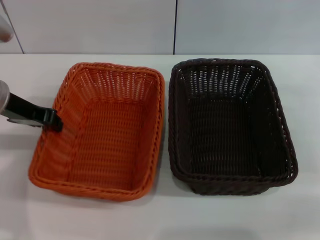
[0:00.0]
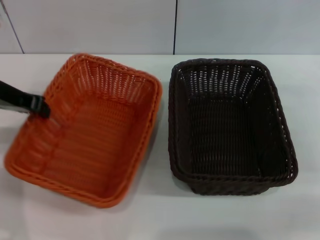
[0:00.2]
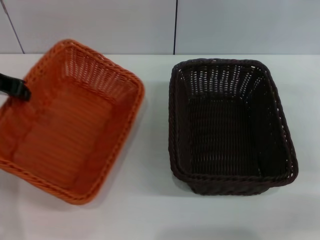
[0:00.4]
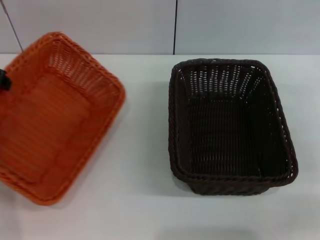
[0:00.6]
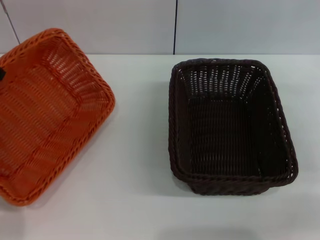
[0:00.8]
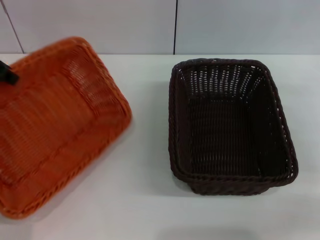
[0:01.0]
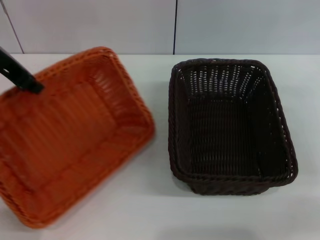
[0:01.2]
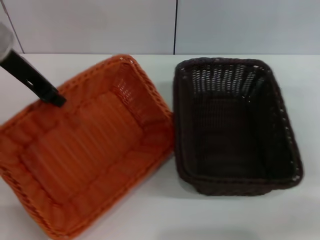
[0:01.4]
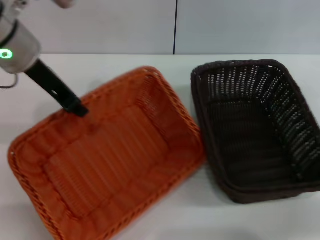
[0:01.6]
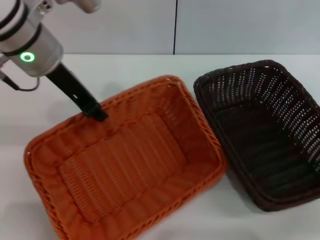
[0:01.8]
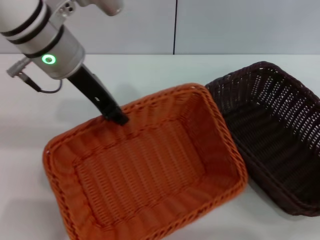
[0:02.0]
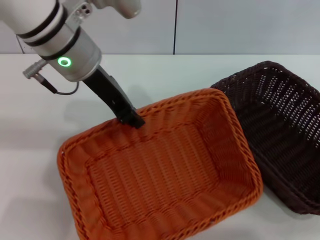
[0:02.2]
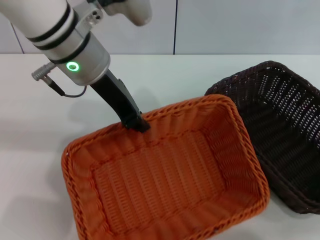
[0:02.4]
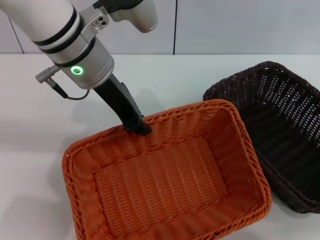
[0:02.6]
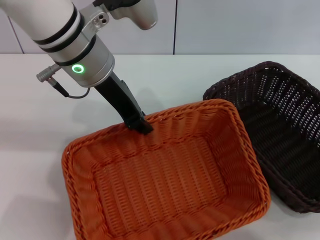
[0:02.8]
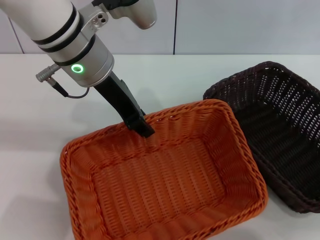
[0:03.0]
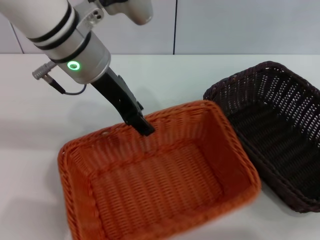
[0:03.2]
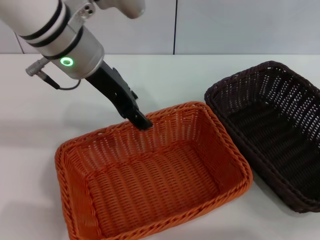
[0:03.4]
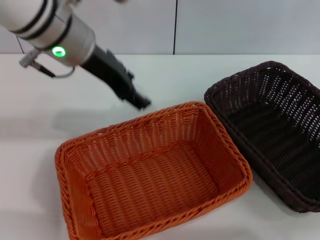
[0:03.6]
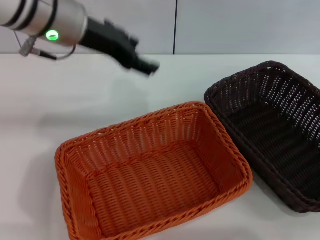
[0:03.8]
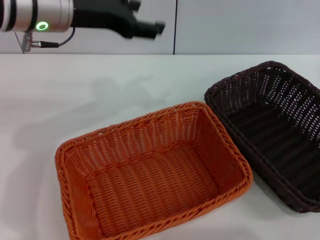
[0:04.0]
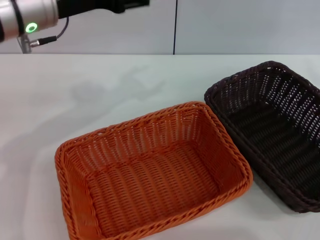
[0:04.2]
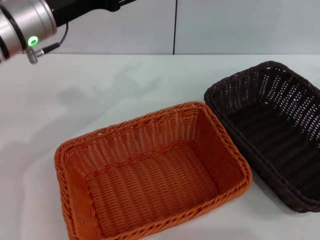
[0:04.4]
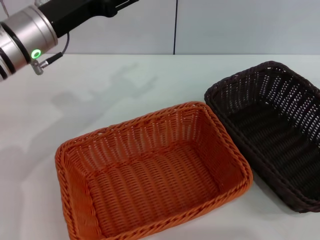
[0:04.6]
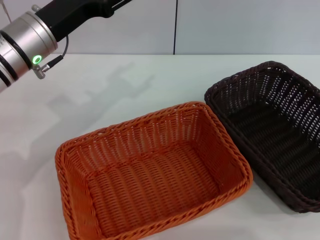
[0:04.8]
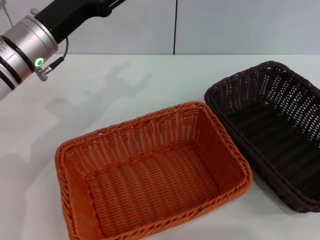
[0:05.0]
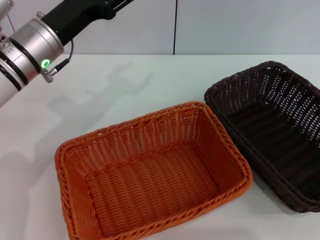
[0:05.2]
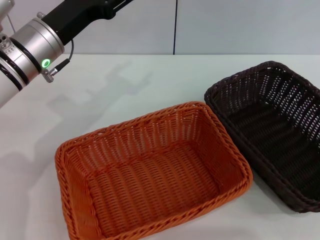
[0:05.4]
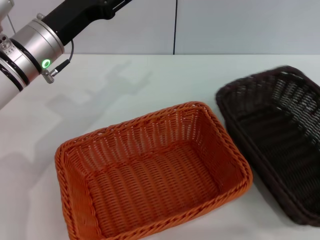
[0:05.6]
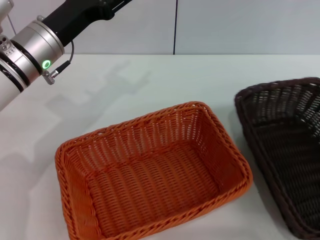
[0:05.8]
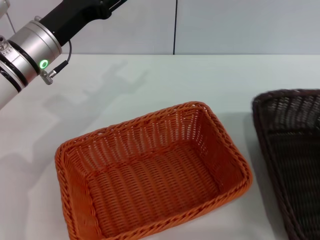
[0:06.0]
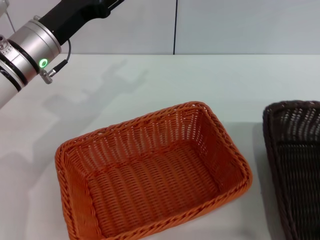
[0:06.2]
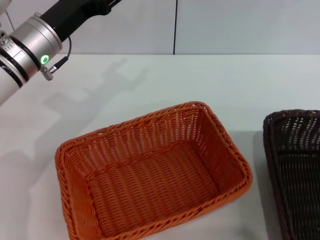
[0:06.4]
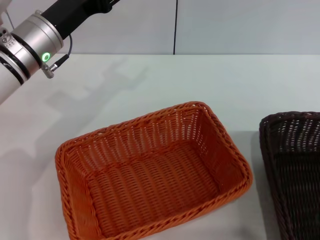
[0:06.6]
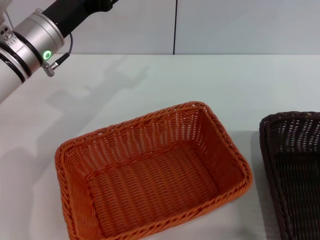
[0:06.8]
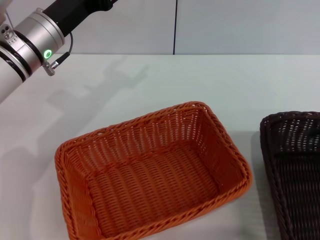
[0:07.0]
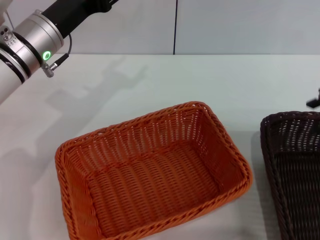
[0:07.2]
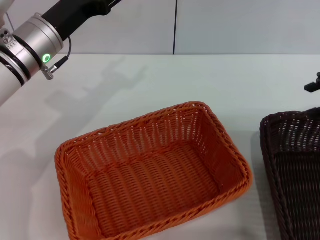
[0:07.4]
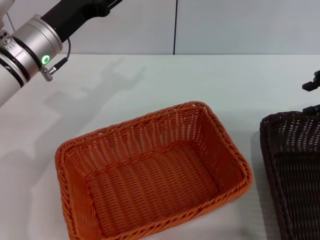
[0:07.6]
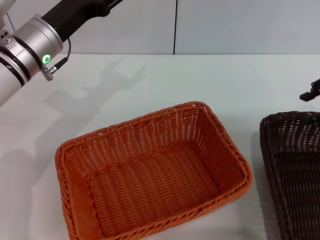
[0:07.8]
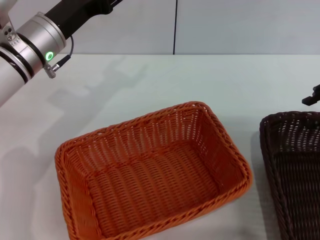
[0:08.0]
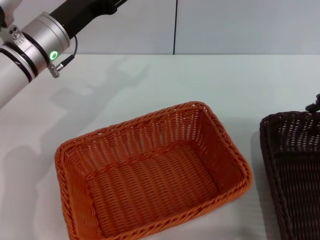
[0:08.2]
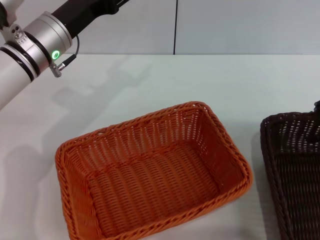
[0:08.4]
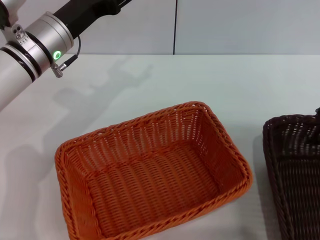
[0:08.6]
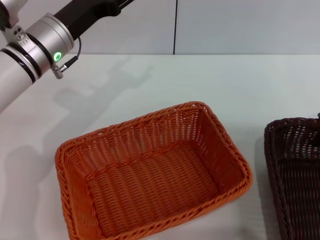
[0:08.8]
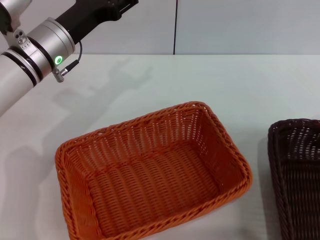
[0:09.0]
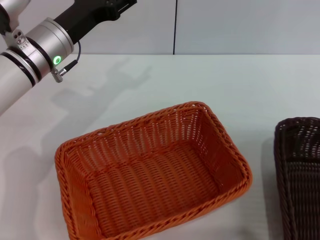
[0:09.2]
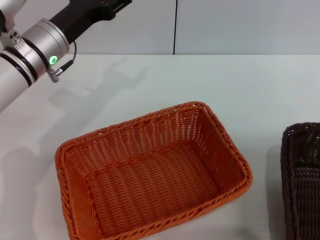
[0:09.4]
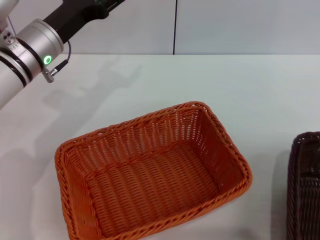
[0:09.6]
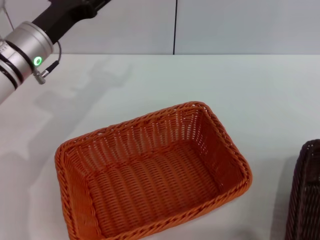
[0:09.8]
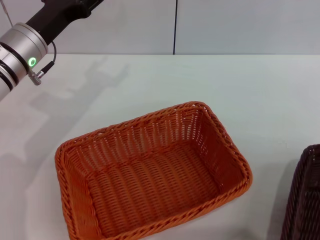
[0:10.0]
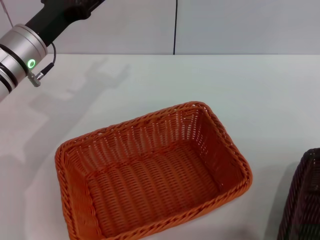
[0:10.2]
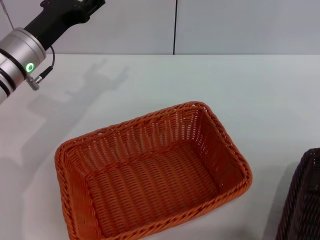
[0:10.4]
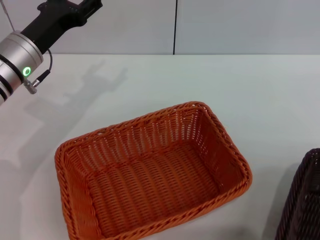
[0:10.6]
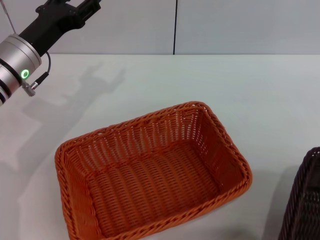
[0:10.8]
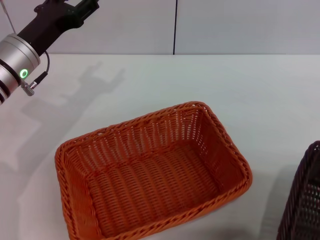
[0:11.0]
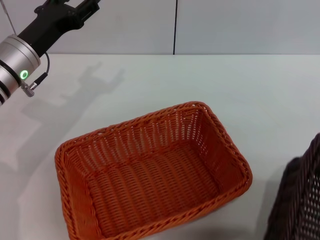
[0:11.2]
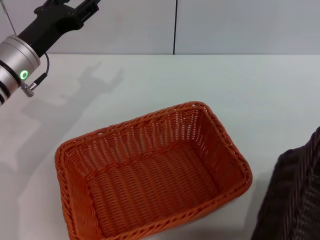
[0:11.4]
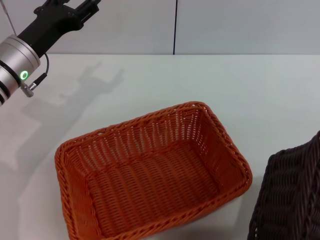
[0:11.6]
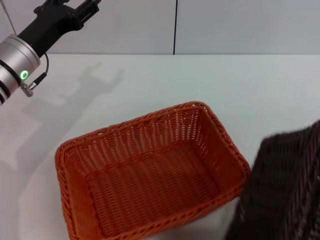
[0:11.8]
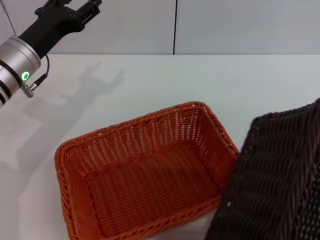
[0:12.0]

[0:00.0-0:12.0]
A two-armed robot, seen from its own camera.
Step, 0:00.6 to 0:03.2: Place the light basket in the center of view with the left gripper.
Step, 0:03.4 to 0:11.6: Pick up the dark basket with the right gripper.
0:00.0 to 0:01.6: The left gripper heads upward and to the right, covering some 10 cm.
0:01.6 to 0:03.0: The left gripper travels to the right by some 10 cm.
0:03.0 to 0:04.4: The right gripper travels upward and to the right by approximately 10 cm. Meanwhile the left gripper shifts some 10 cm to the left, and opens its fingers.
0:04.4 to 0:06.0: The left gripper shifts roughly 5 cm downward, while the right gripper travels backward and to the left by about 10 cm.
0:06.0 to 0:07.6: The right gripper heads forward, covering roughly 10 cm.
0:07.6 to 0:09.0: The right gripper shifts some 5 cm downward, and closes its fingers.
0:09.0 to 0:10.4: The right gripper moves backward and to the right, about 10 cm, and closes its fingers.
0:10.4 to 0:12.0: The right gripper ends up some 5 cm from where it was.

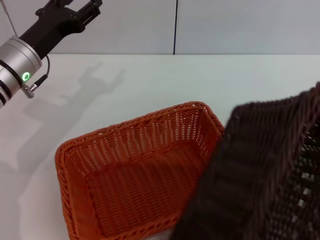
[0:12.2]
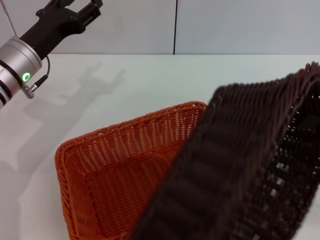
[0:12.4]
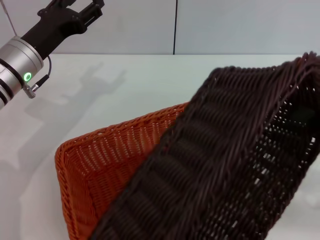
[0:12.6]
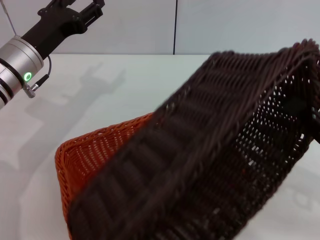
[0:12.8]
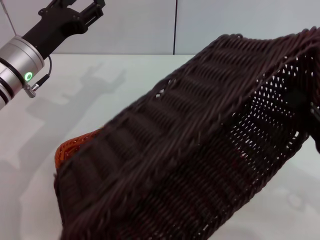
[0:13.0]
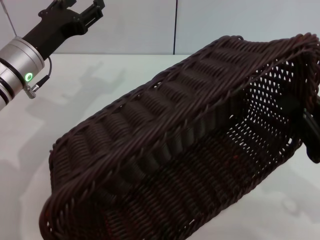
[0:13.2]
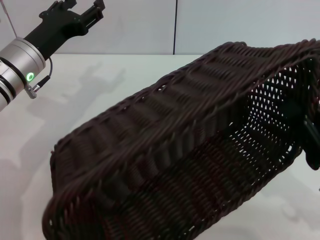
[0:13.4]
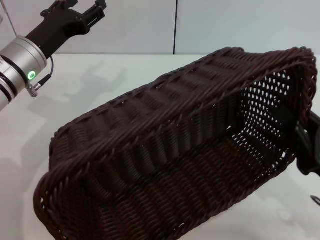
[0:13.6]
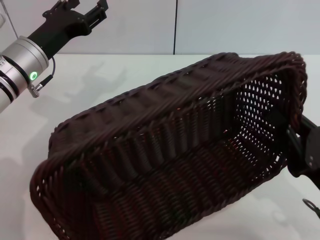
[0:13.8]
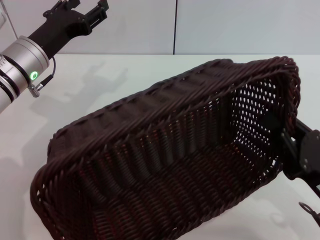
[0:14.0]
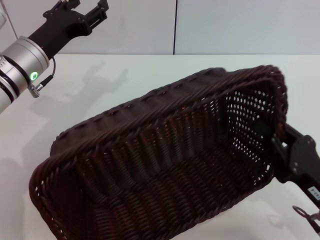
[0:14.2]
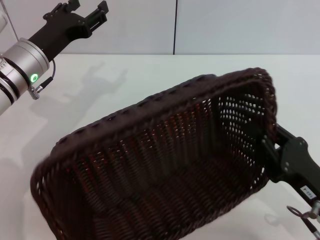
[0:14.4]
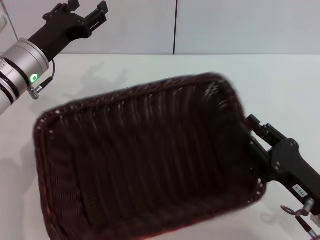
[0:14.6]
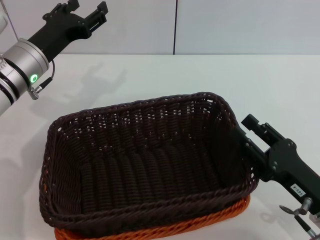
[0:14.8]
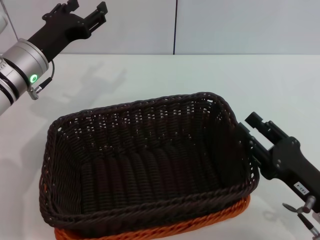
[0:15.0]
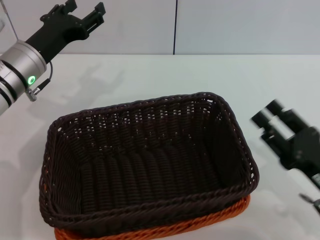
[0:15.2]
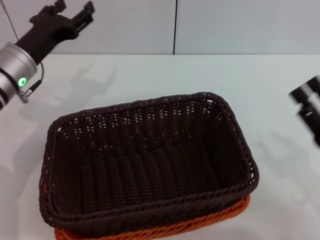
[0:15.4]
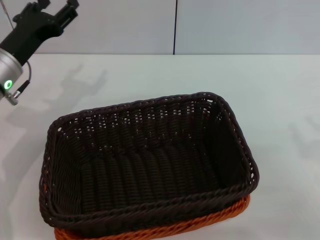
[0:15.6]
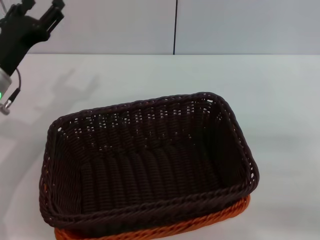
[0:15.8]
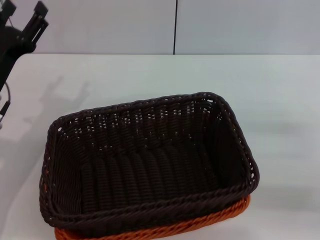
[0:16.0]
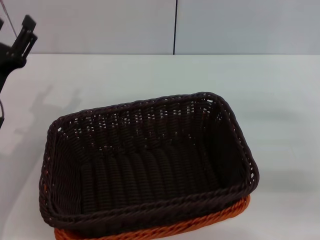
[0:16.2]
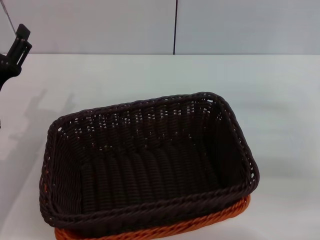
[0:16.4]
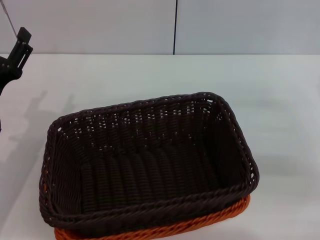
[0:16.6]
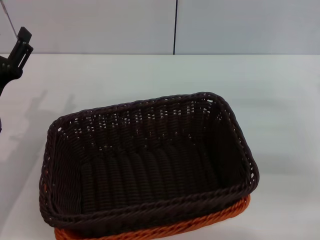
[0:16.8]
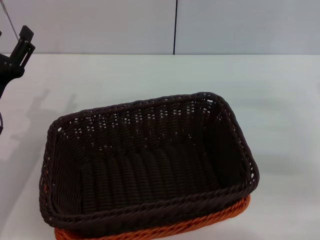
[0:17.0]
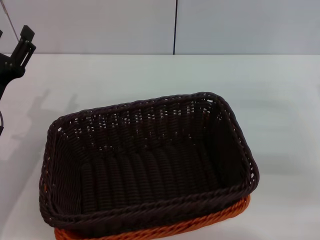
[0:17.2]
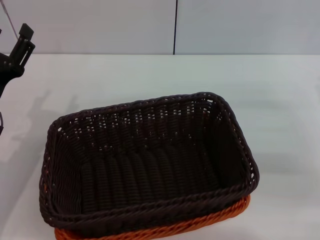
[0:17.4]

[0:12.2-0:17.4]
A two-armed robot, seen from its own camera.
Step, 0:12.2 to 0:15.0: Place the dark basket on the light basket with the right gripper.
0:12.2 to 0:14.0: The right gripper moves to the left, downward and backward, approximately 15 cm.
0:14.0 to 0:15.6: The right gripper moves to the right, approximately 5 cm, and opens up.
0:15.6 to 0:17.4: The left gripper is displaced backward by approximately 10 cm; the right gripper travels forward by roughly 10 cm.

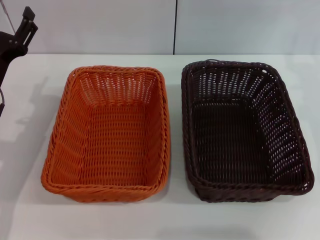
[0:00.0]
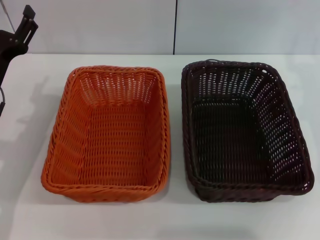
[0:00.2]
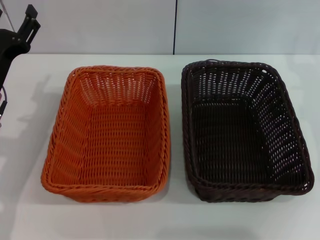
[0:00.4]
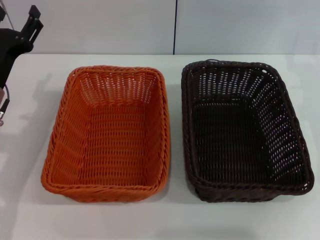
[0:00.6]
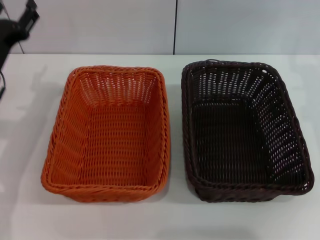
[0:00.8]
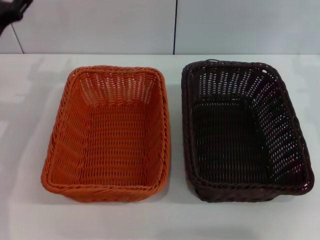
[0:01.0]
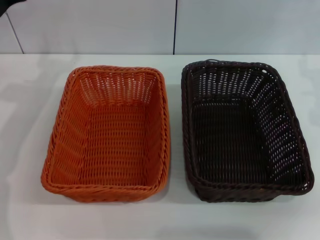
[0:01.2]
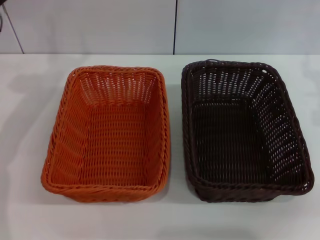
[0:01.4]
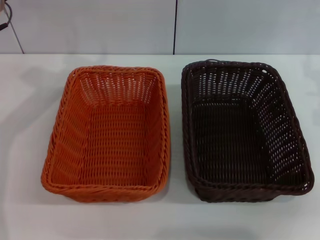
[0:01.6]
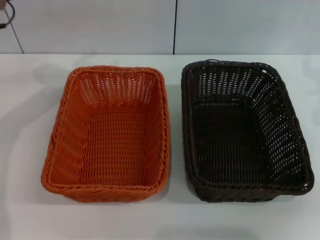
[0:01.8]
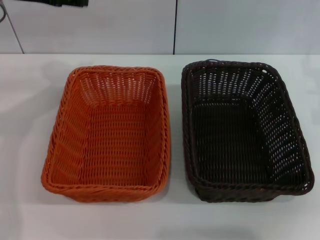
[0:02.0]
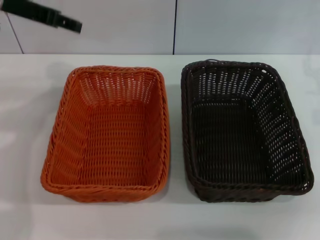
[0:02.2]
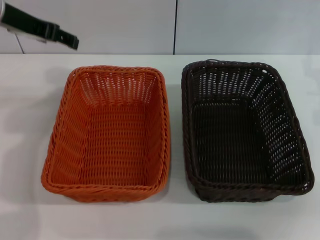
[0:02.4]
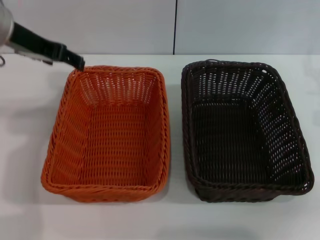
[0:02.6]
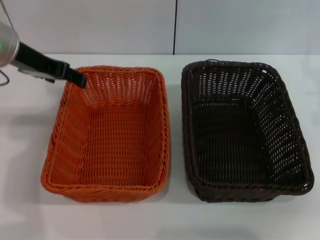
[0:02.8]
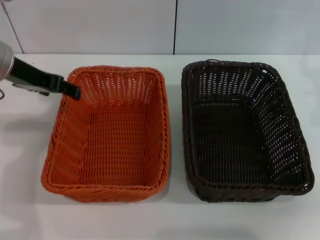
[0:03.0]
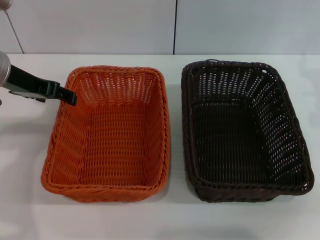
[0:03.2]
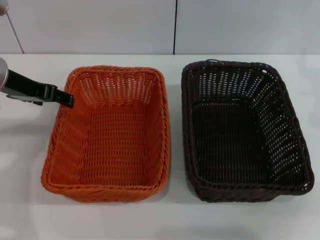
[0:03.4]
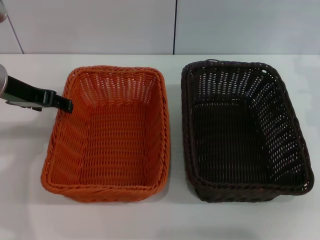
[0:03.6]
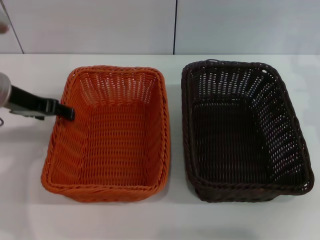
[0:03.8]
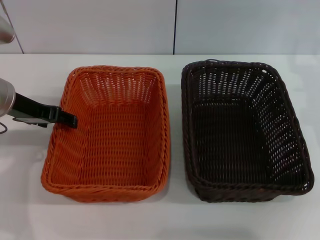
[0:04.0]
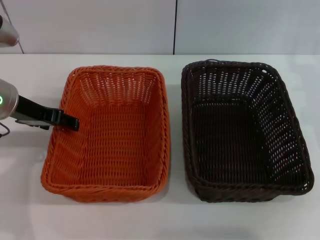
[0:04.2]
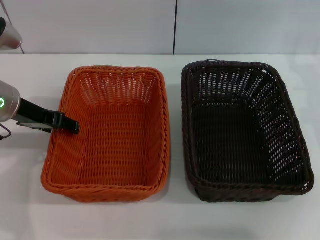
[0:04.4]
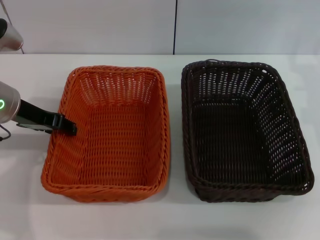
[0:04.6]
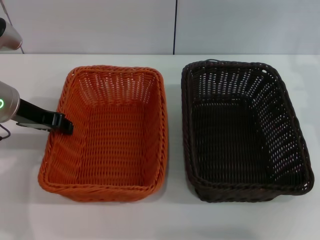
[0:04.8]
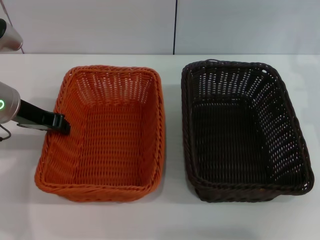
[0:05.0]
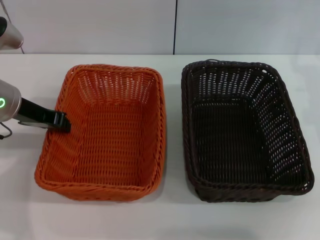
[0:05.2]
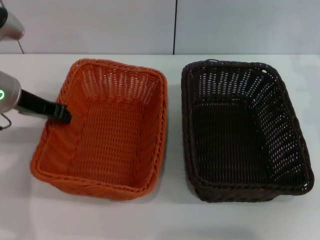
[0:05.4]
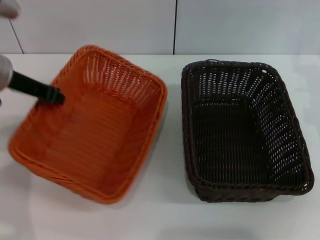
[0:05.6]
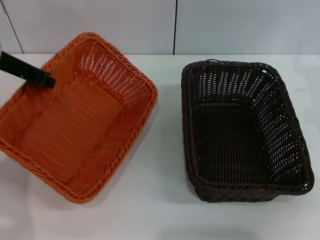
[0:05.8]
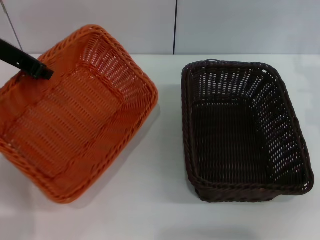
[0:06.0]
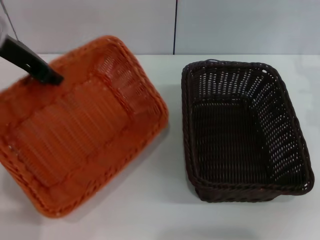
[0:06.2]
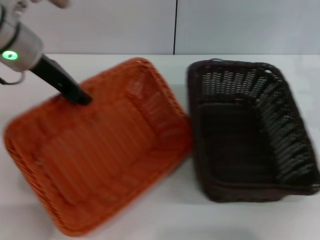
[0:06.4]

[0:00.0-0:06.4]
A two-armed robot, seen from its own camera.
Step, 0:00.0 to 0:06.0: Pick up the light basket with the left gripper.
0:00.0 to 0:01.6: The left gripper moves upward and forward, some 15 cm.
0:01.6 to 0:03.2: The left gripper goes approximately 5 cm backward.
0:03.2 to 0:04.8: The left gripper travels downward by about 5 cm, and closes.
0:04.8 to 0:06.4: The left gripper shifts about 10 cm upward, and closes its fingers.
